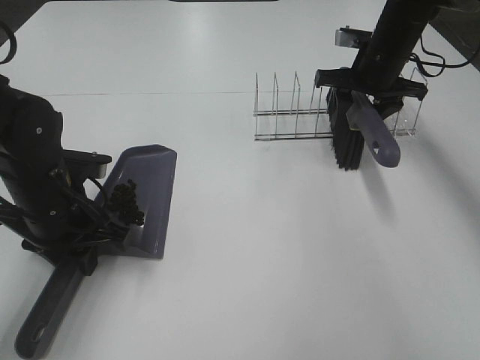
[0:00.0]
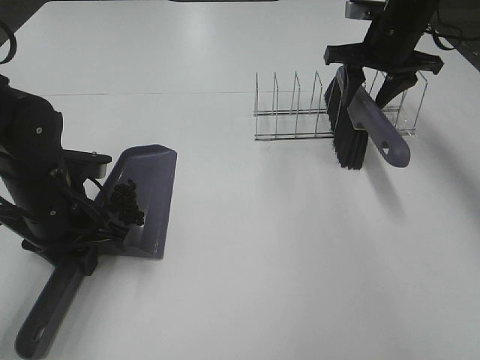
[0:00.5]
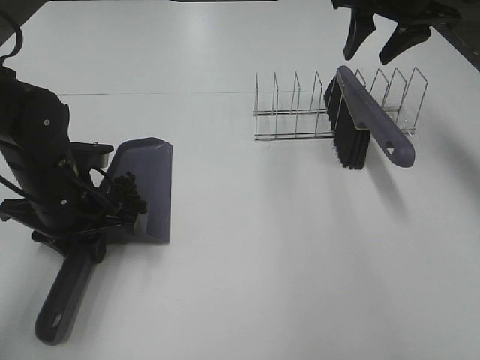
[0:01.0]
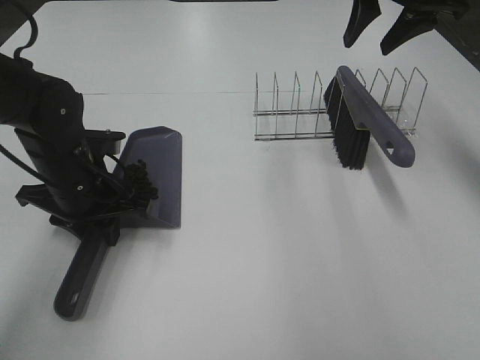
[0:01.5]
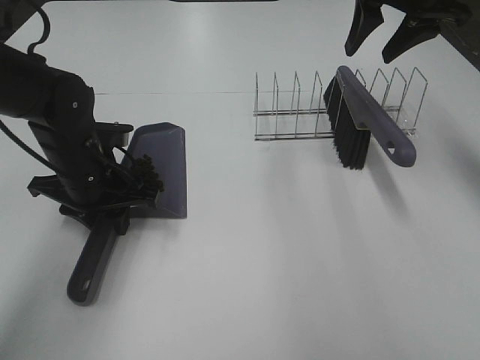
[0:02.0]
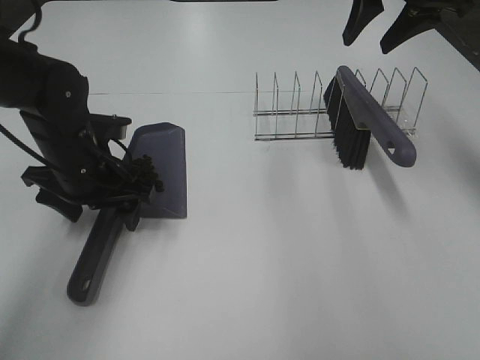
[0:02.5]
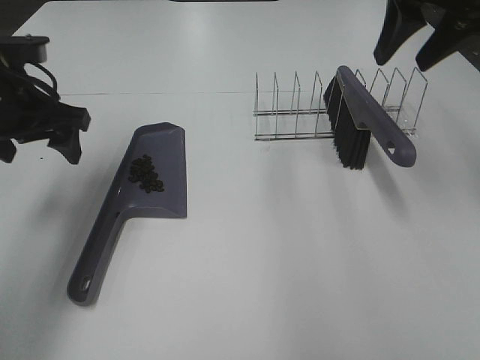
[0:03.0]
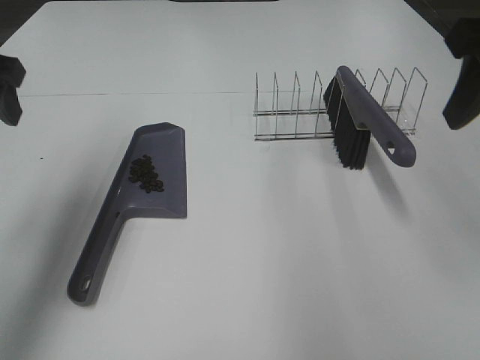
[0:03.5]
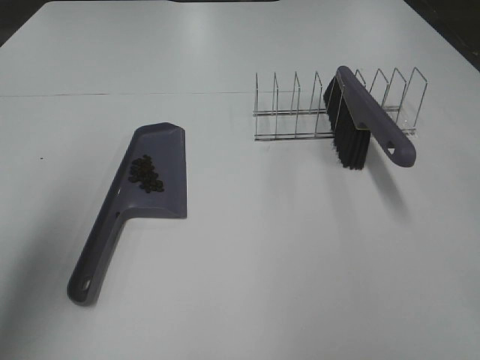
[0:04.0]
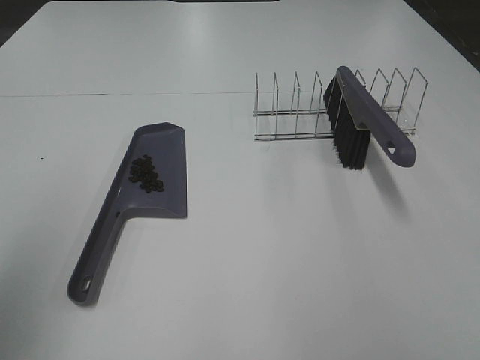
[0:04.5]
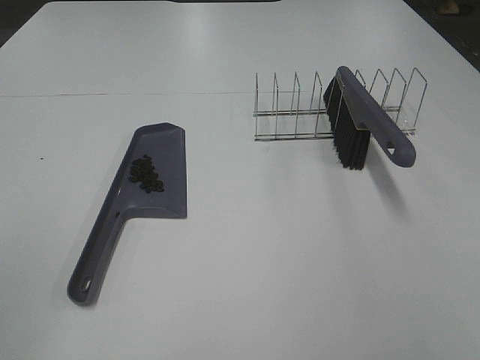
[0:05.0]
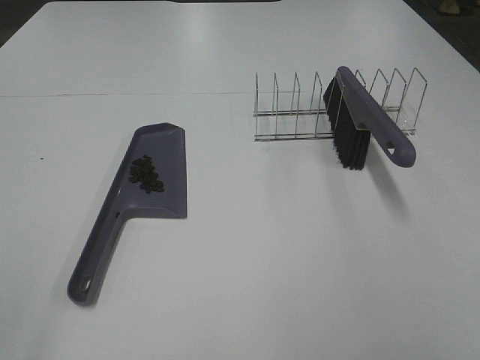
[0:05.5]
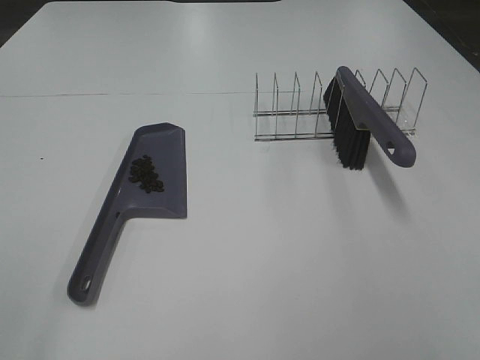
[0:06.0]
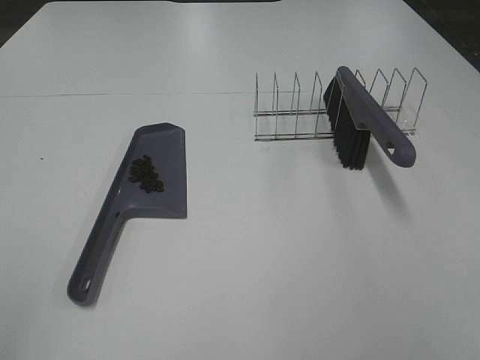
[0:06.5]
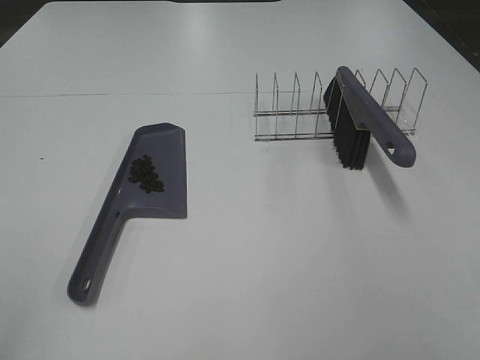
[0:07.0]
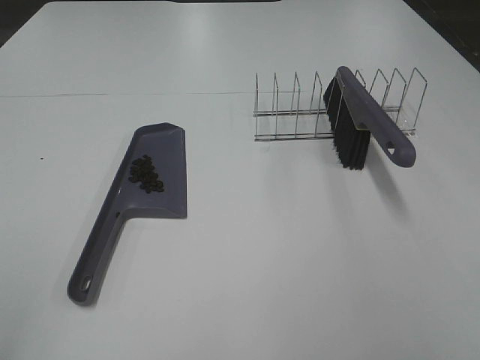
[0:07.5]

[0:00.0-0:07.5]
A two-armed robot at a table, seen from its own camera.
Task of the whole recording: Sweep Coffee Bean.
Step, 0:00.5 to 0:02.0: Left hand:place the dustpan on the table.
0:00.0 to 0:02.0: The left gripper shifts by about 5 cm, while the right gripper heads upward, covering about 15 cm.
0:02.0 to 0:04.0: The right gripper shifts about 35 cm backward, while the left gripper is displaced upward, backward and to the left by approximately 30 cm, and opens up.
0:04.0 to 0:05.5: The left gripper moves backward, roughly 20 cm.

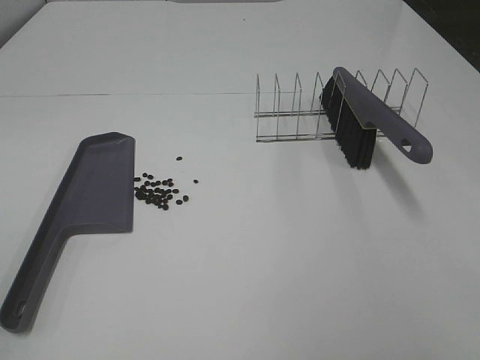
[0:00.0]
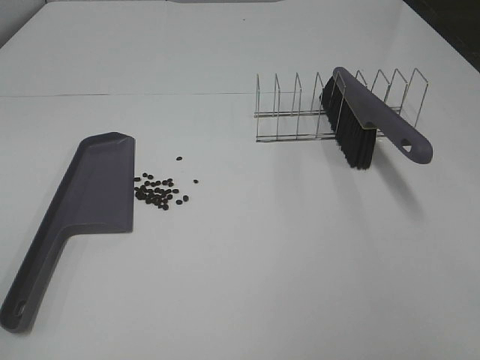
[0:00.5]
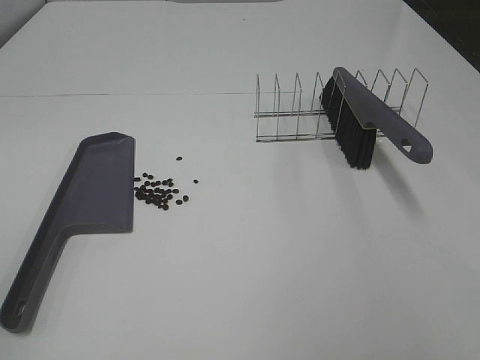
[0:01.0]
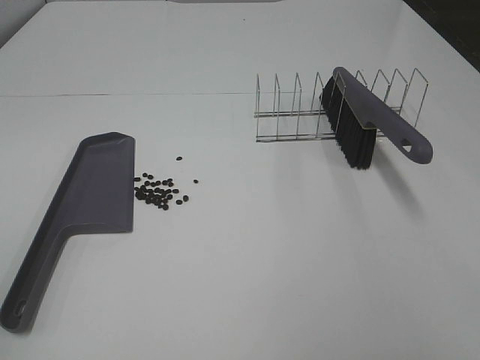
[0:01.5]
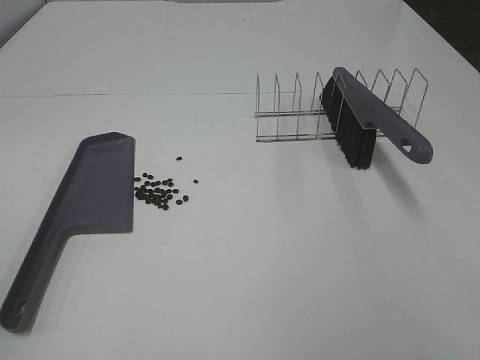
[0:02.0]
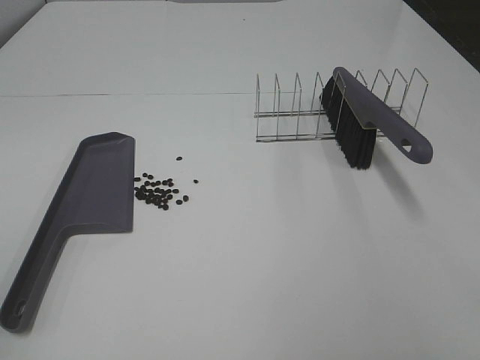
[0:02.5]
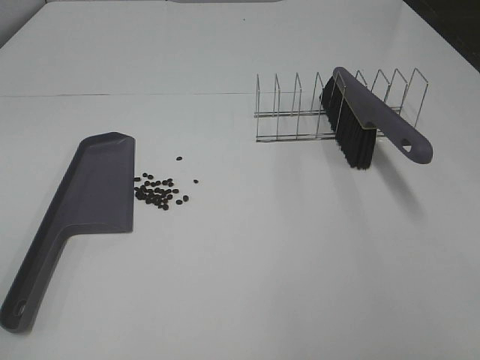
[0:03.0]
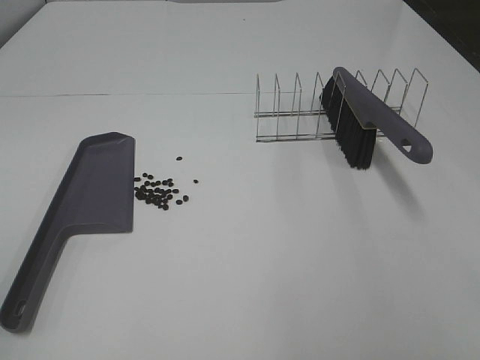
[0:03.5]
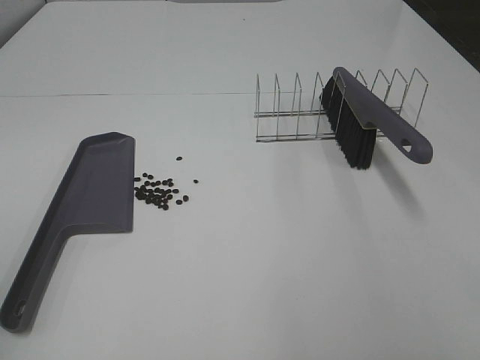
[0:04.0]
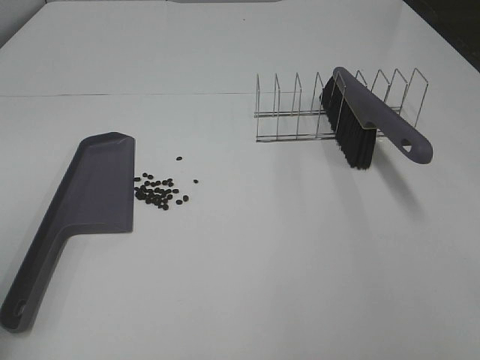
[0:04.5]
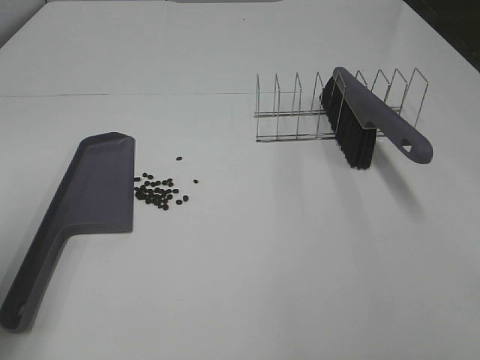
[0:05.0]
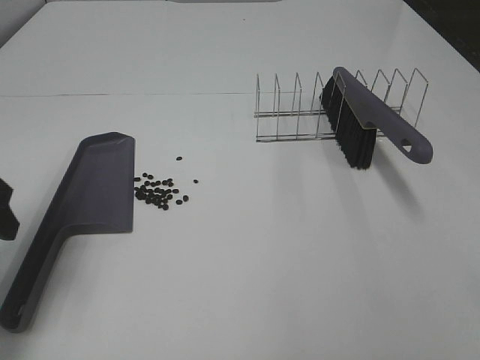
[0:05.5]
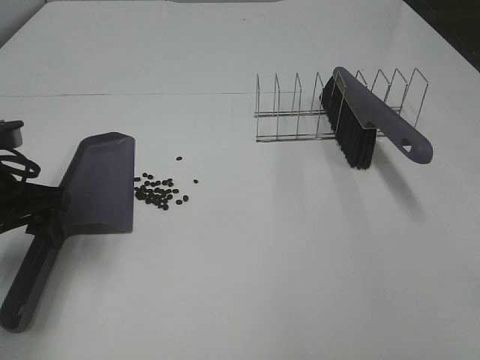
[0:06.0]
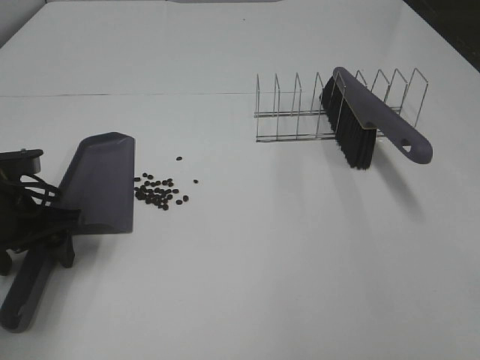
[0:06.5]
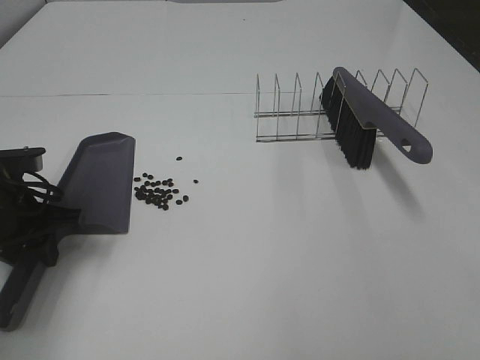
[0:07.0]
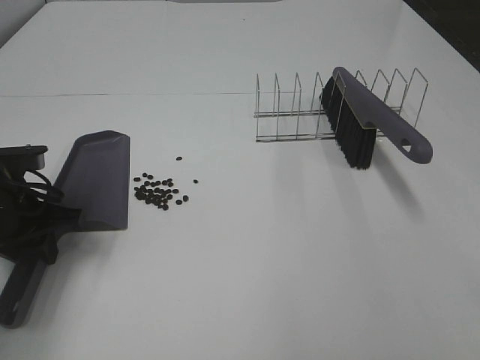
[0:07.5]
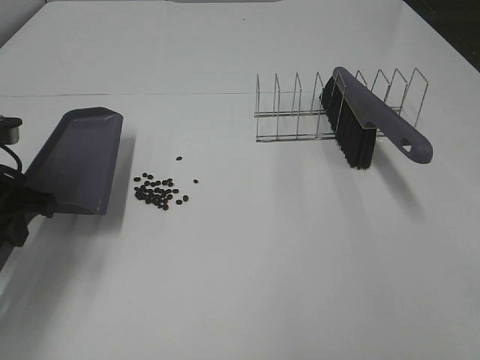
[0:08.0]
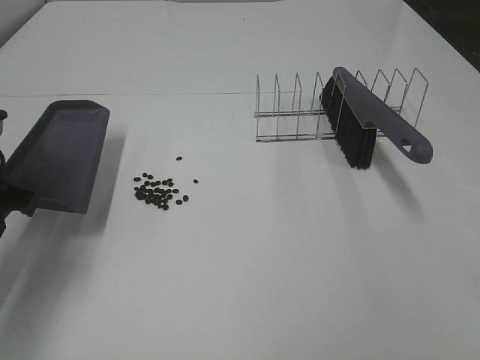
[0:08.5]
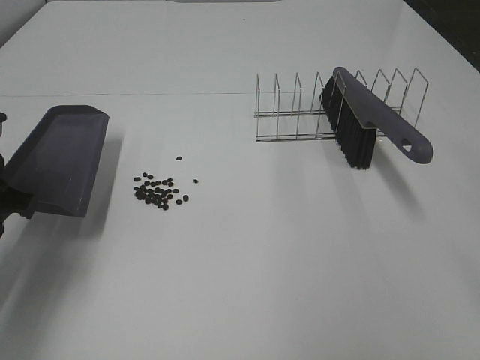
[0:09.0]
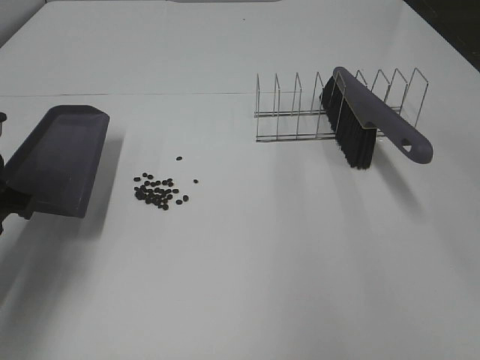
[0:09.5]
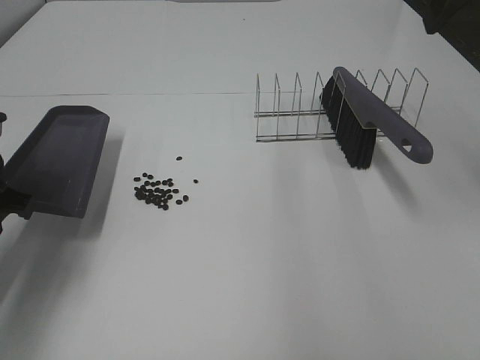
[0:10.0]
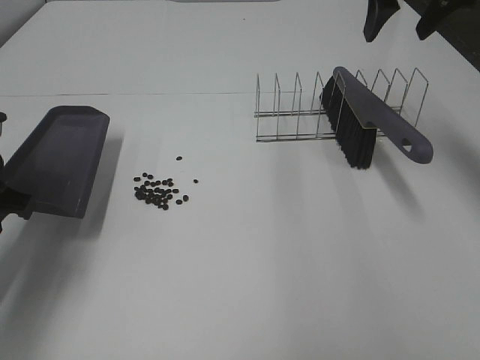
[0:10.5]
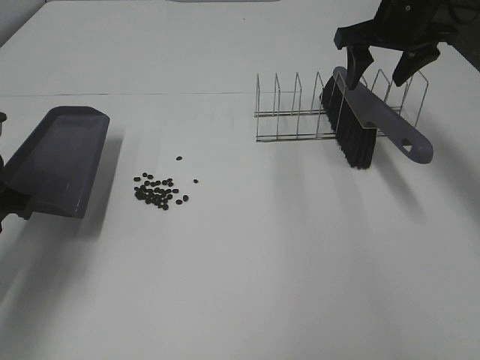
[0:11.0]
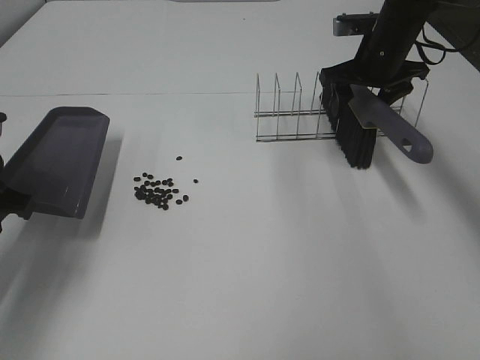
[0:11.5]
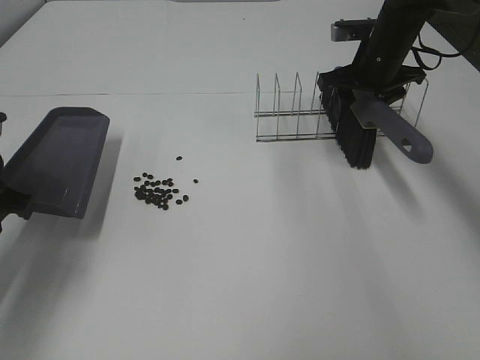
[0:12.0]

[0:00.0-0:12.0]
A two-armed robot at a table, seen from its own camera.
Task of the whole recording: Sweep Coffee Bean.
Step, 0:00.0 to 0:07.0: Left hand: grab the dustpan.
0:00.0 to 0:02.0: Both grippers stay about where they are.
0:04.0 to 0:06.0: The left gripper travels forward and downward by approximately 30 cm.
0:06.0 to 0:08.0: The left gripper closes its fingers.
0:10.0 to 0:12.0: The right gripper goes some 25 cm downward and forward.

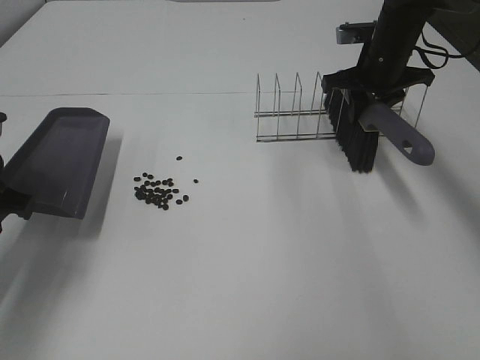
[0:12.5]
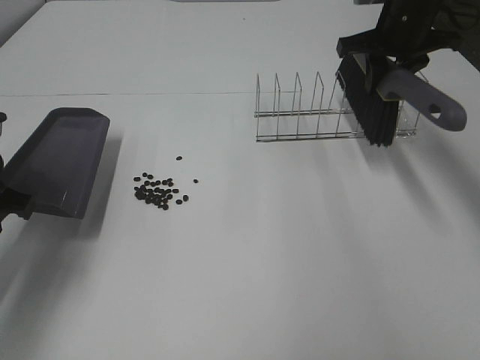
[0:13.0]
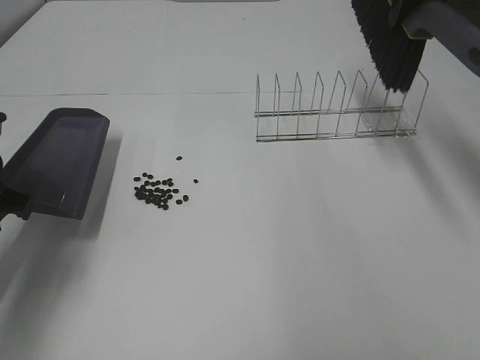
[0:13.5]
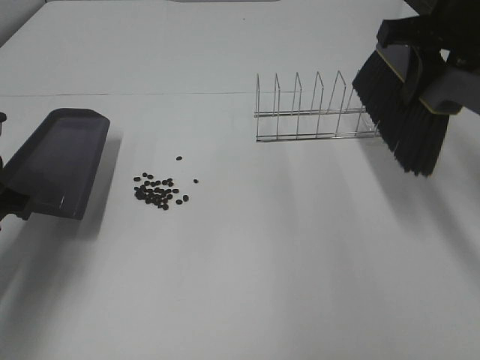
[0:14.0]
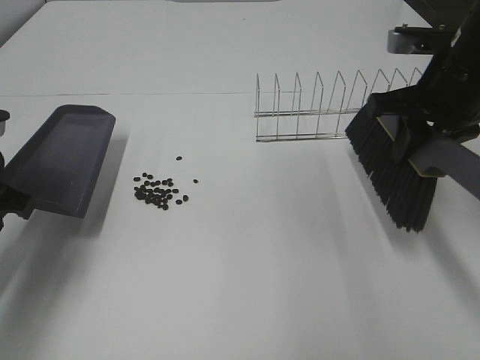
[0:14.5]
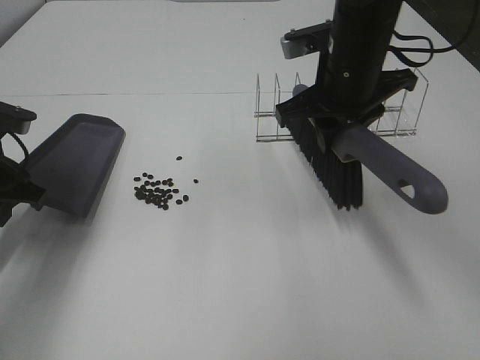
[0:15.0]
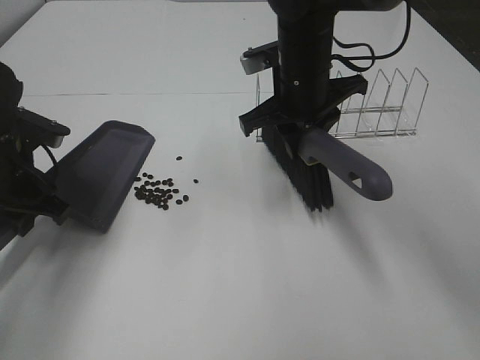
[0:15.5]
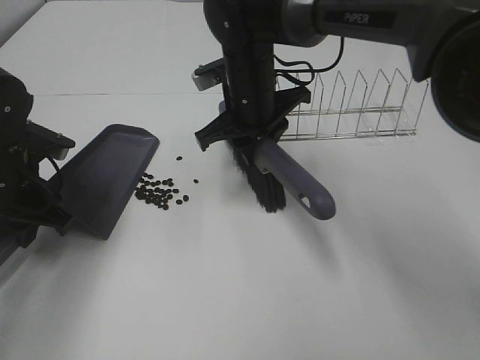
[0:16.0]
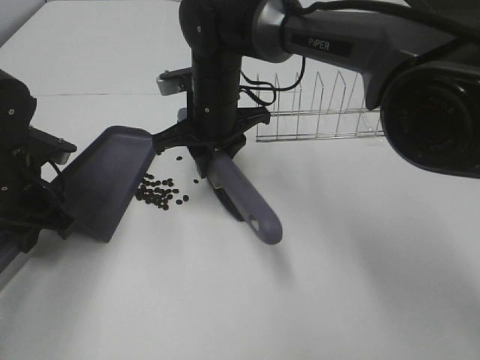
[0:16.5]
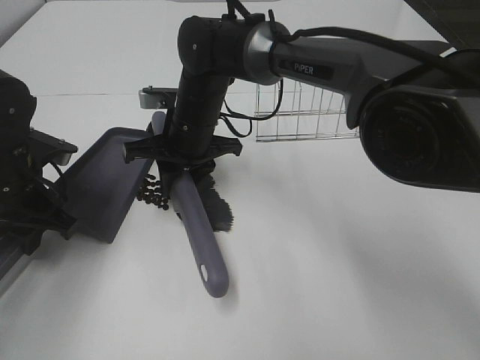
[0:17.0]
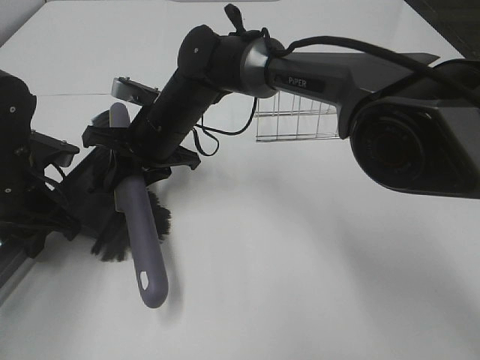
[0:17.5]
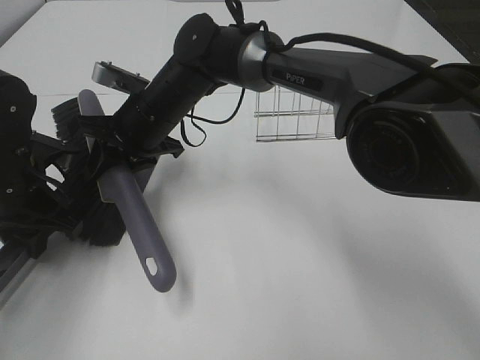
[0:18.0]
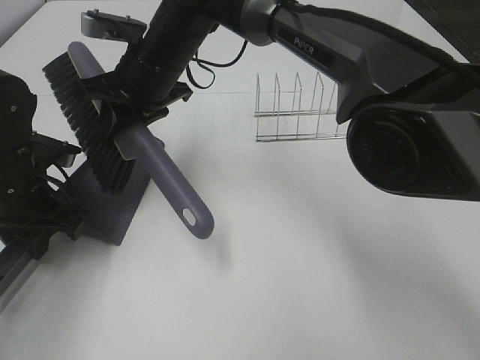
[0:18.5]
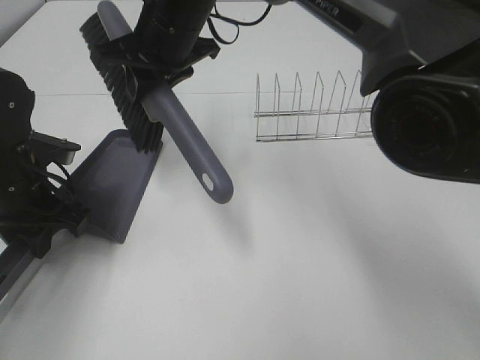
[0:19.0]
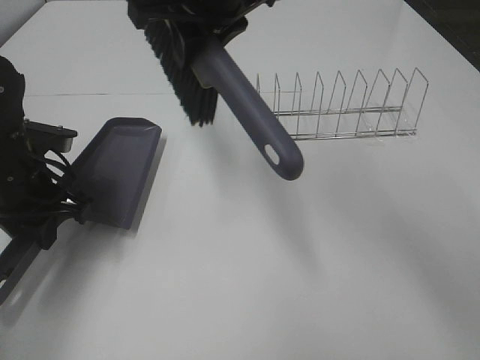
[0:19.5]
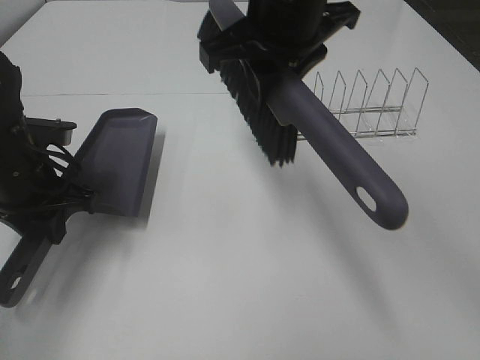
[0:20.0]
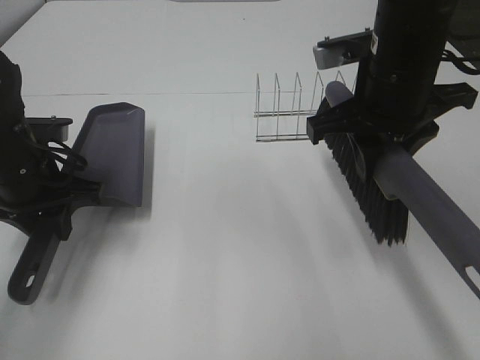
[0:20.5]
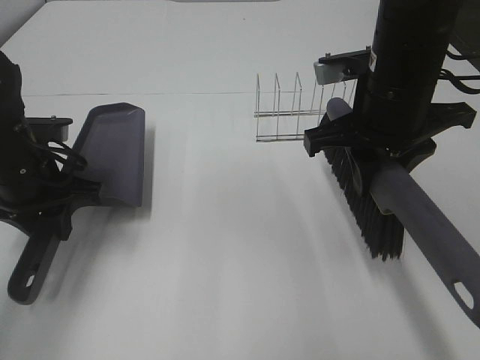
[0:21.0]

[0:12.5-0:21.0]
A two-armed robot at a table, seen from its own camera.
Task of the whole recording: Sweep Coffee Bean.
Step, 0:13.0 to 0:18.5: Right hand:sweep the coffee beans into the dustpan.
0:12.5 to 0:14.5: The right gripper moves backward and upward, roughly 15 cm.
0:14.5 to 0:16.5: The right gripper shifts about 25 cm to the left; the left gripper moves downward, roughly 5 cm.
0:16.5 to 0:19.0: The right gripper moves upward, some 10 cm.
0:19.0 to 0:21.0: The right gripper travels to the right and backward by roughly 25 cm.
